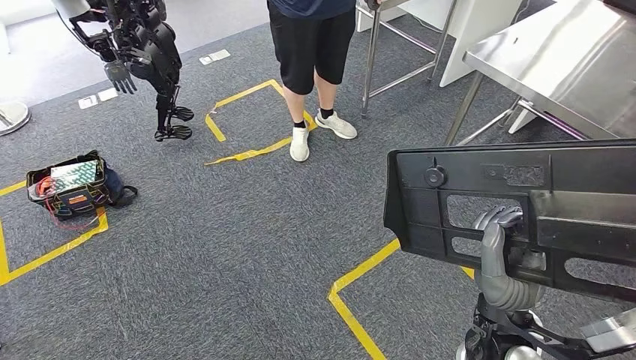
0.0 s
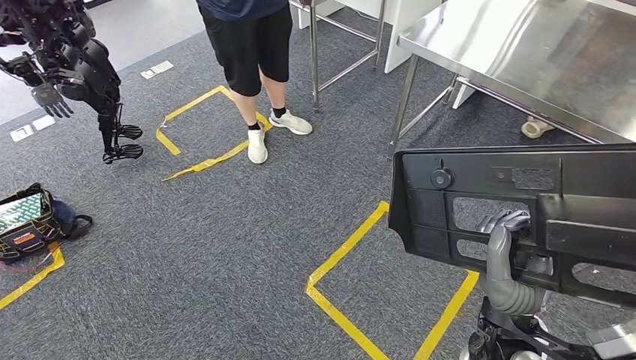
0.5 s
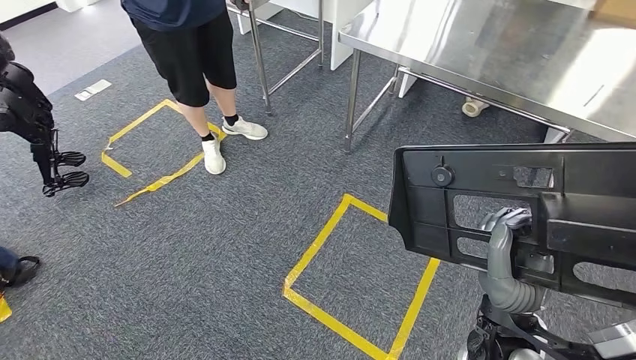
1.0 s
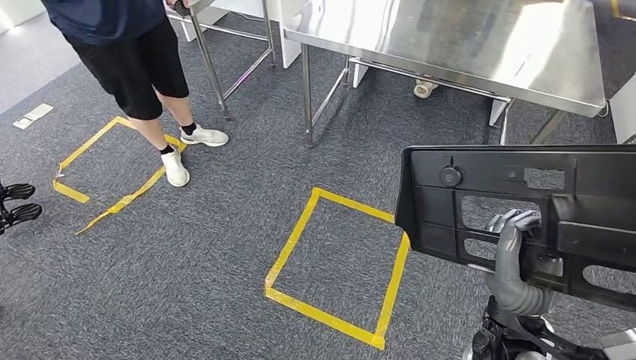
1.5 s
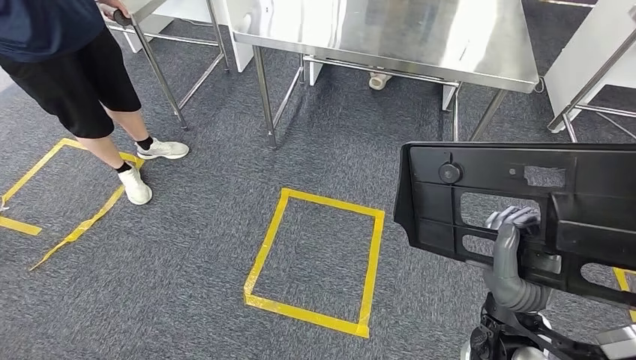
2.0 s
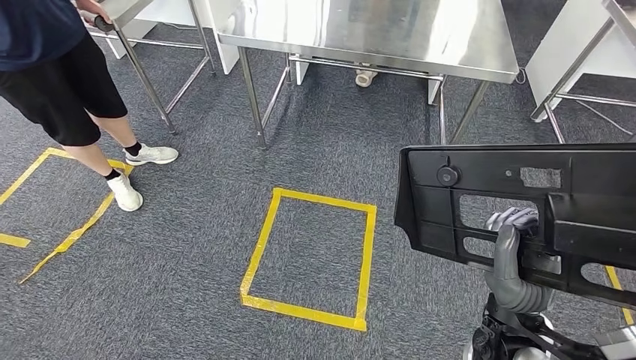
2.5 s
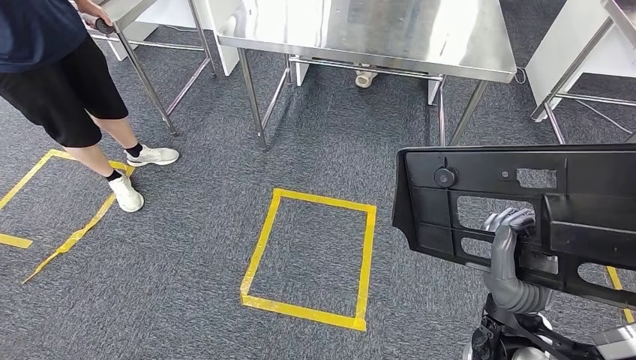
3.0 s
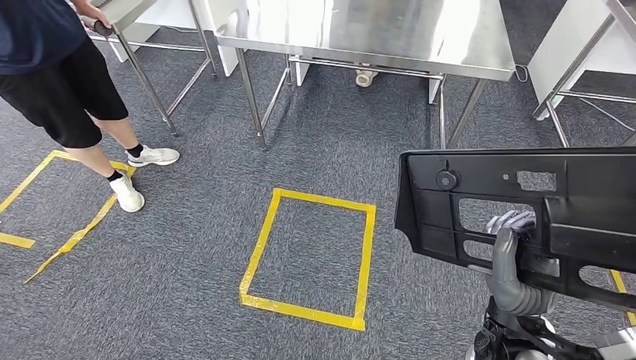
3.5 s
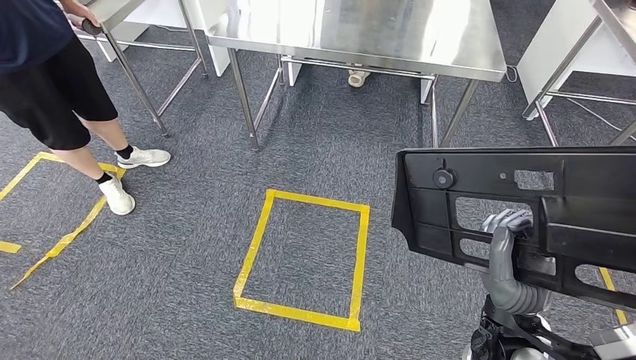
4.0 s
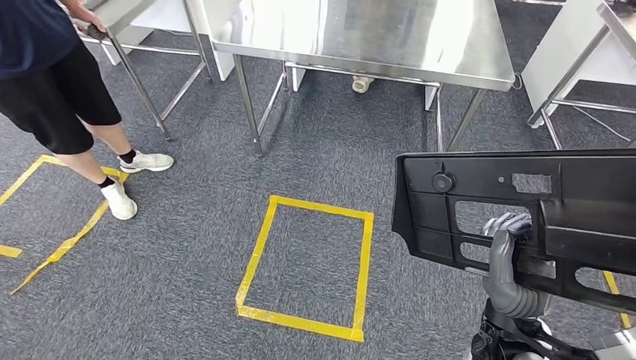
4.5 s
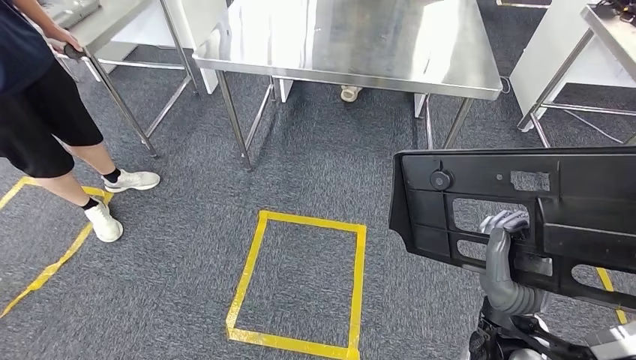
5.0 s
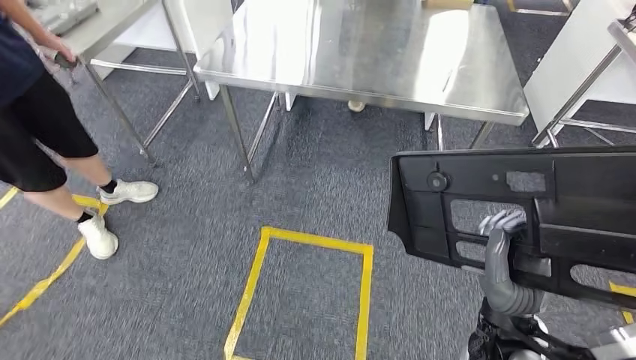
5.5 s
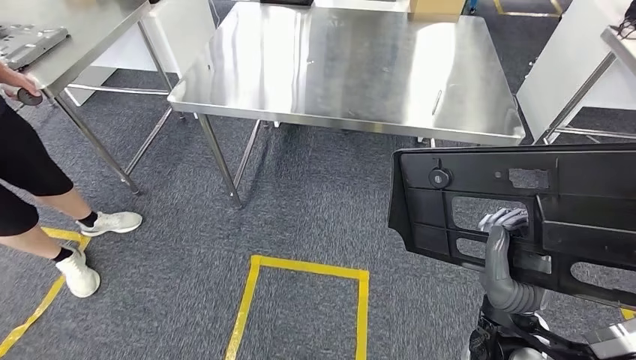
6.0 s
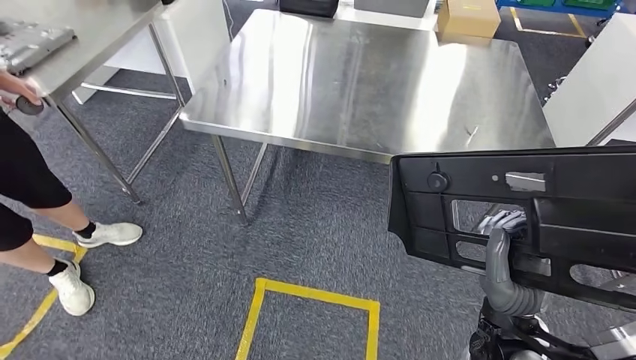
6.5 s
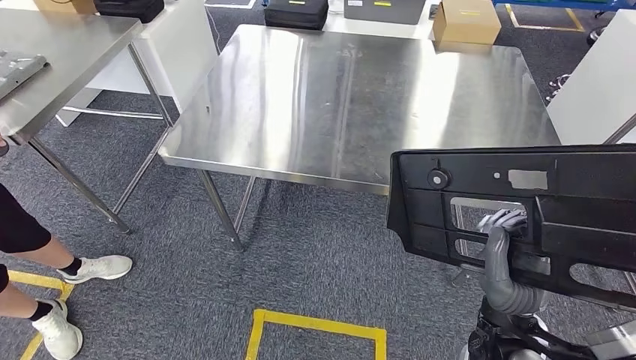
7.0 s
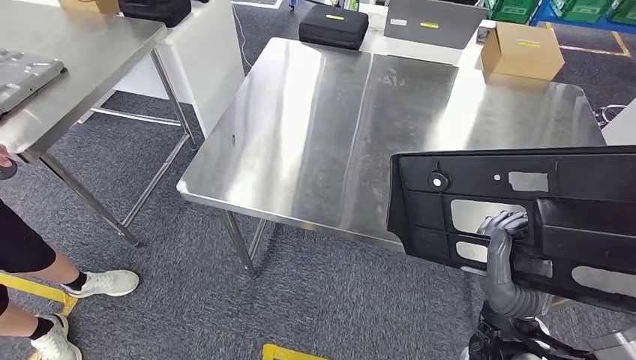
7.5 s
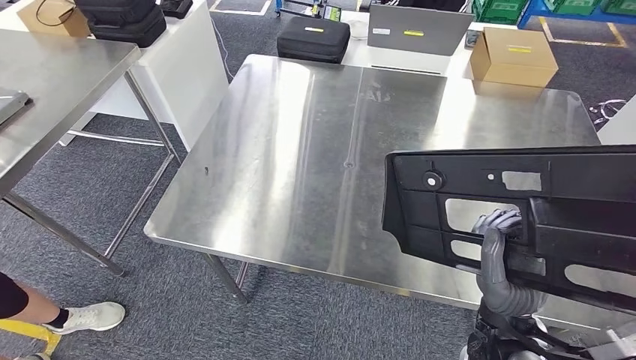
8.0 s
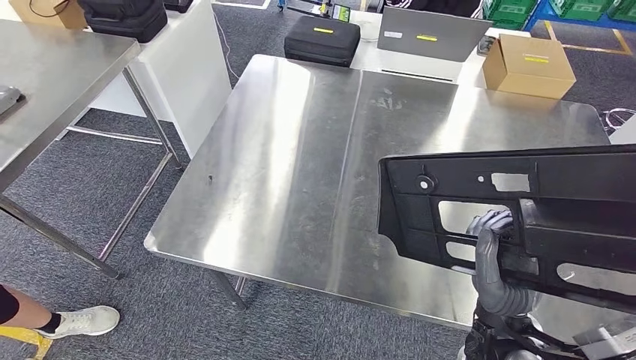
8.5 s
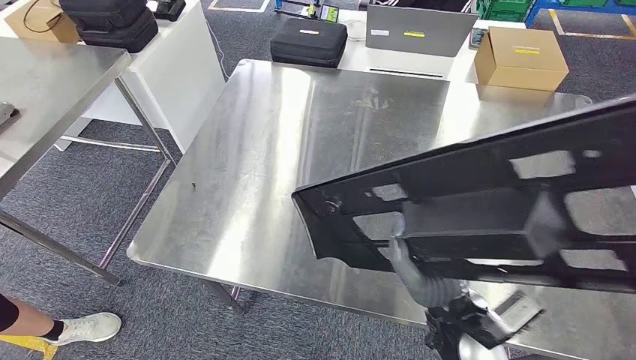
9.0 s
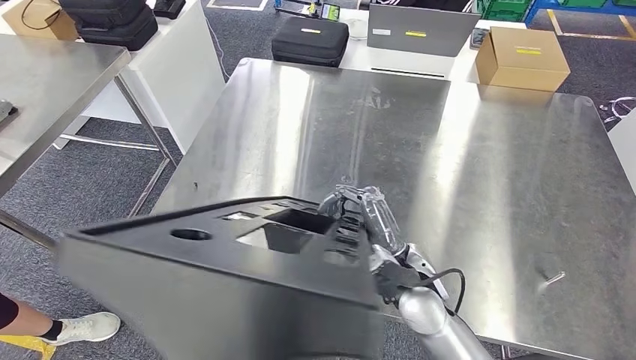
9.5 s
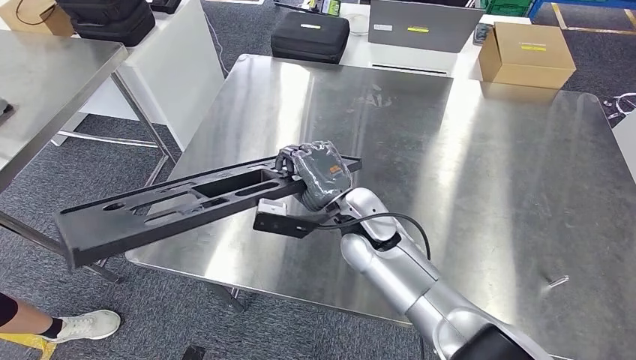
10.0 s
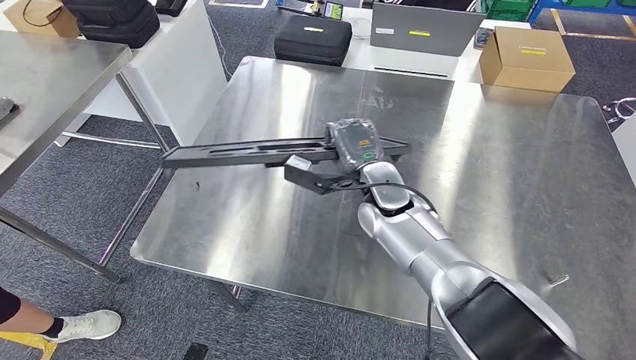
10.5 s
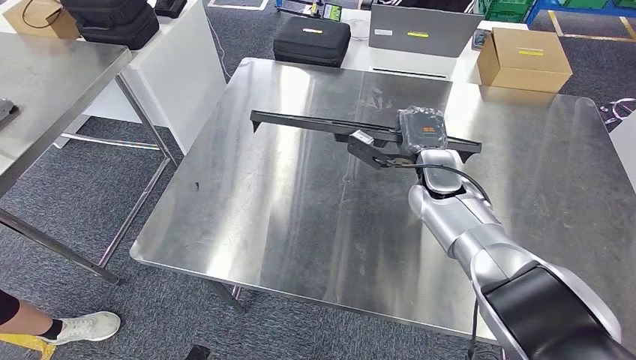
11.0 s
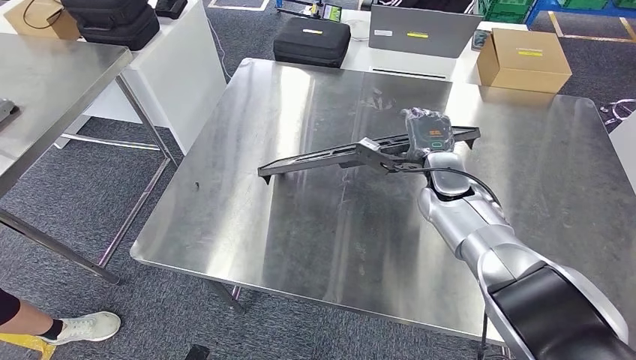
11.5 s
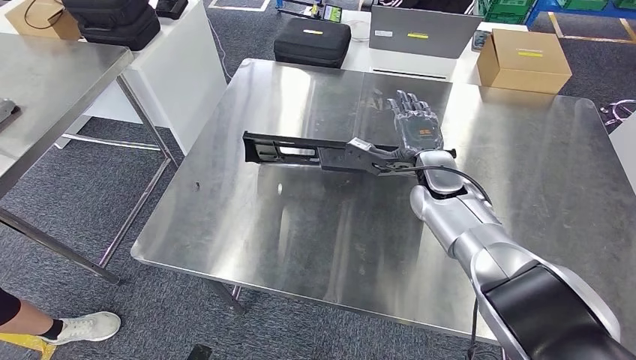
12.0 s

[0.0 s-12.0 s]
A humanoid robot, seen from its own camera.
Step, 0.0 to 7.5 s: Move the large material to the workbench.

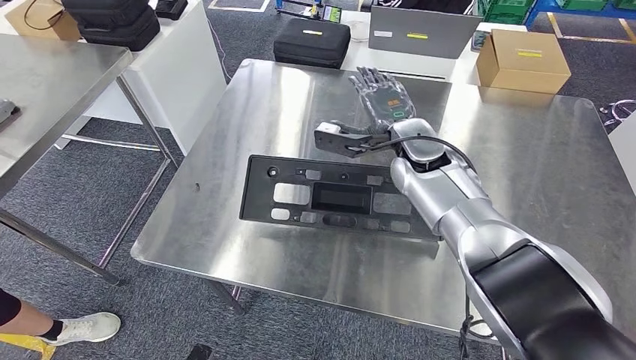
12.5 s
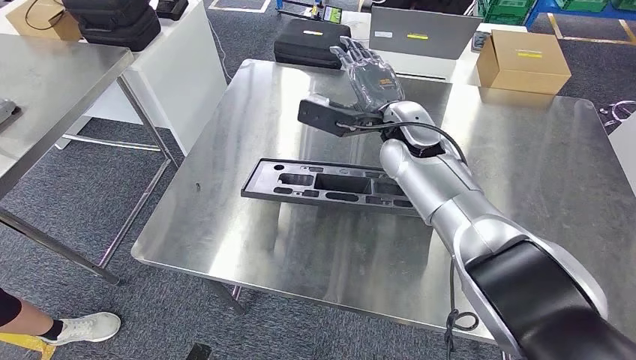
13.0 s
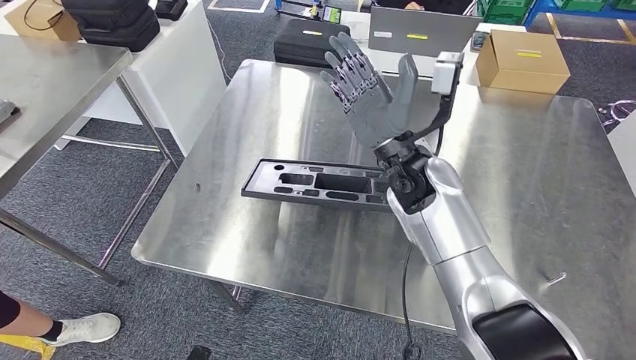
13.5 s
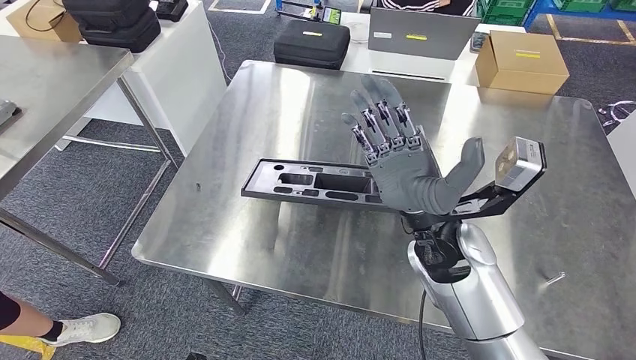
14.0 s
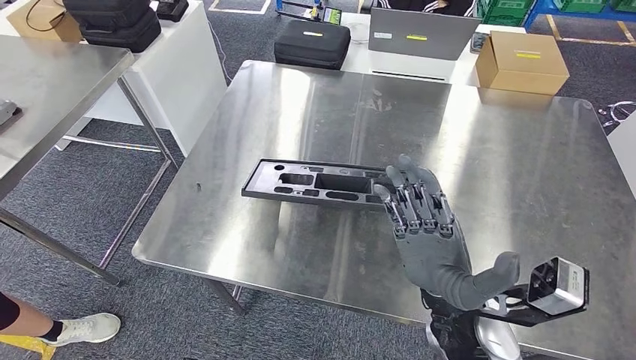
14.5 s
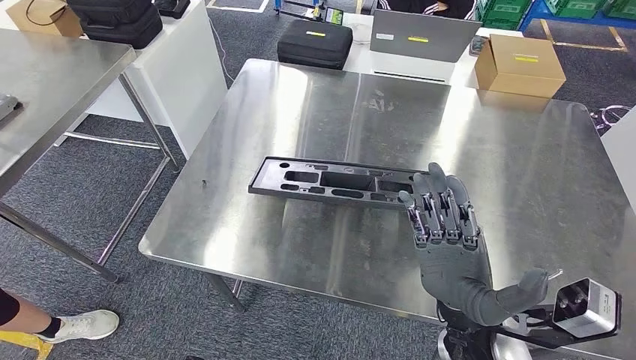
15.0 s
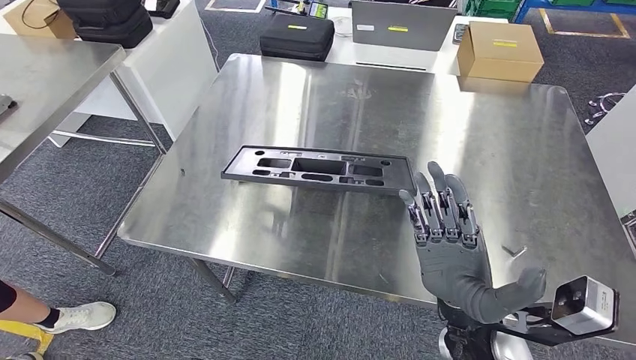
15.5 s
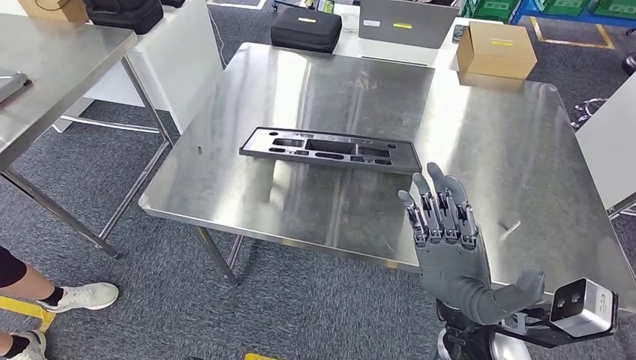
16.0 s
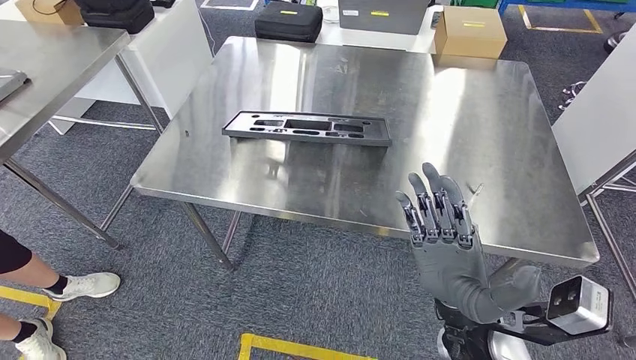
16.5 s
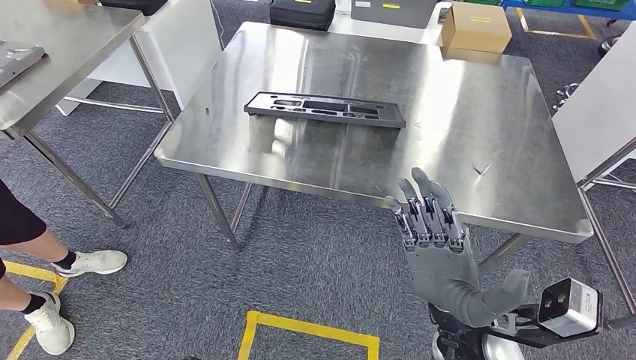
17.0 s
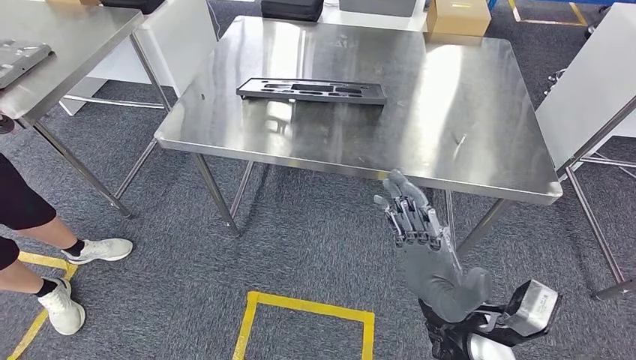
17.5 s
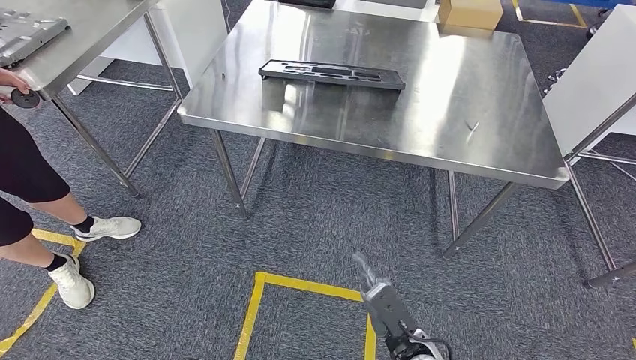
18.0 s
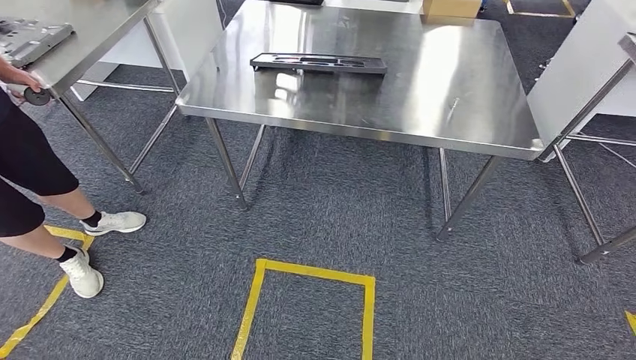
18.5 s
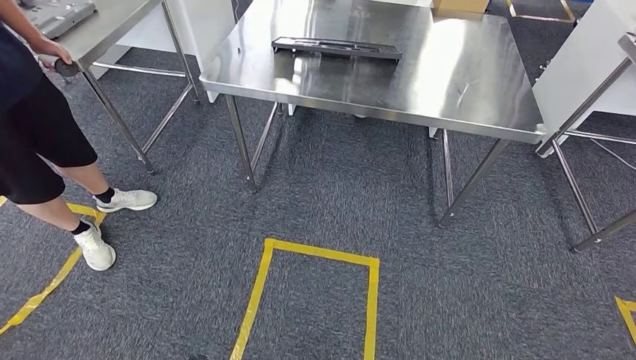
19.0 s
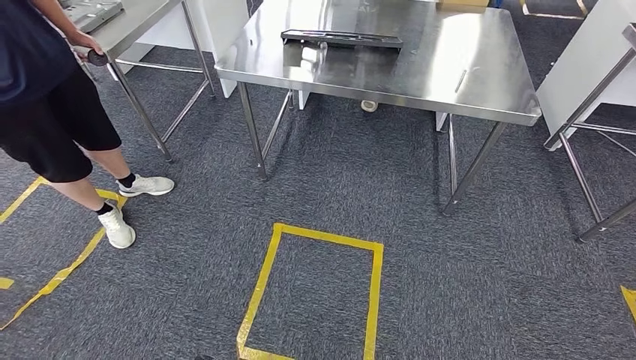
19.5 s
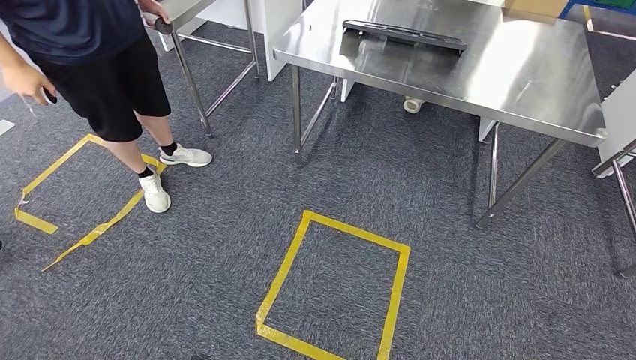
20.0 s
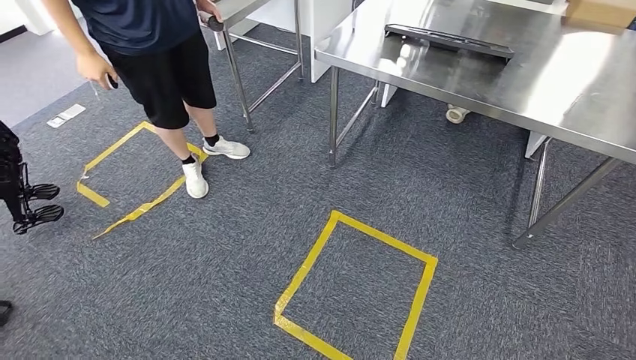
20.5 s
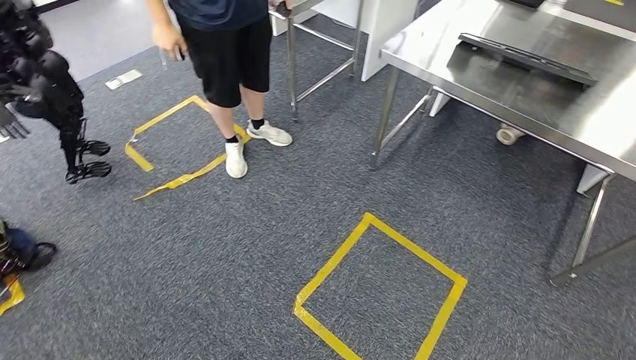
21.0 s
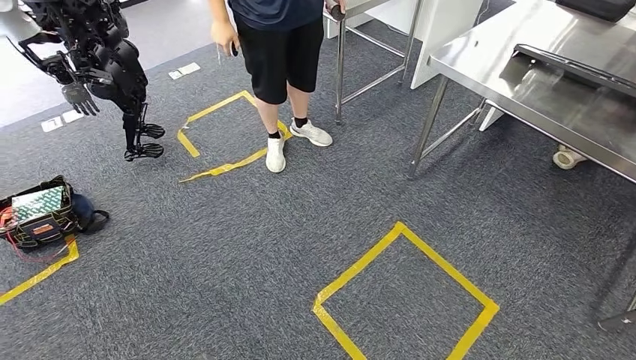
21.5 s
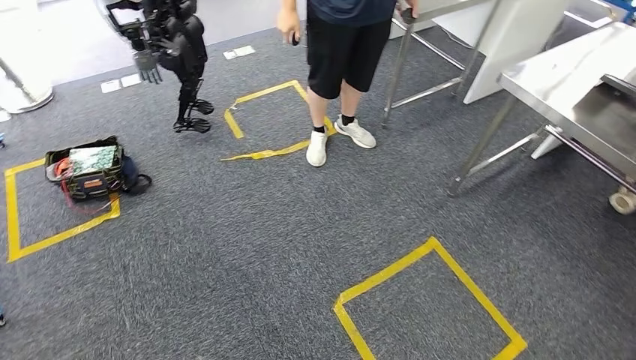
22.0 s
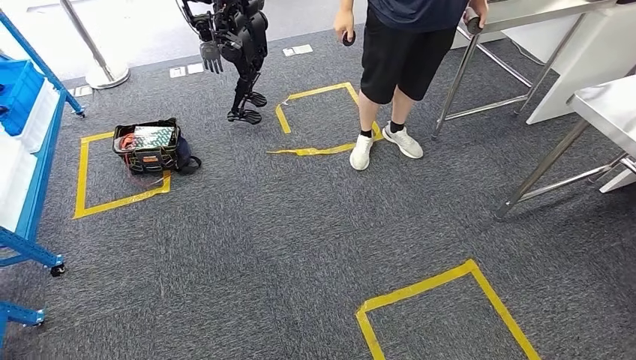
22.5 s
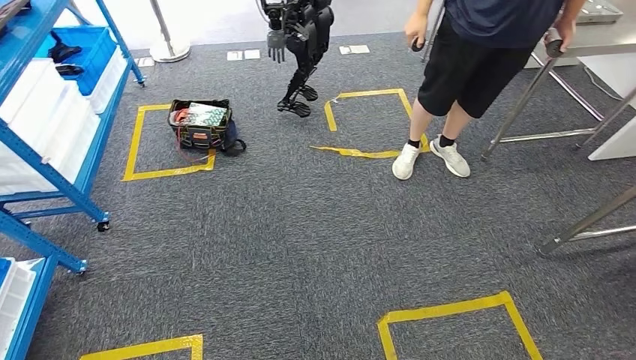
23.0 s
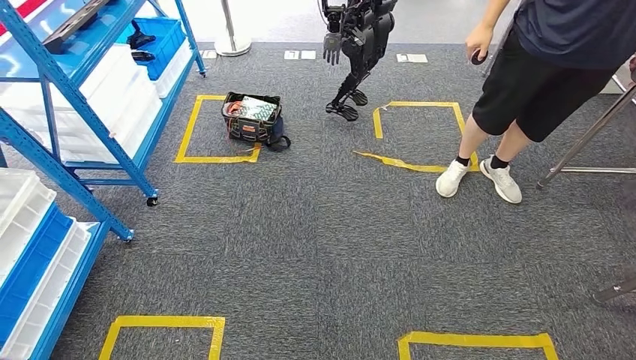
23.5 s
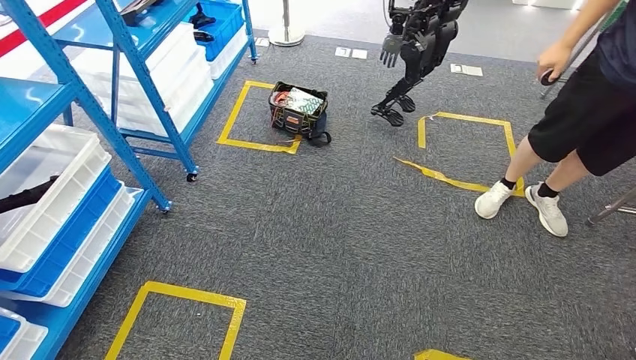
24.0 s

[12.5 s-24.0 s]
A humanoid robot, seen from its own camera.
Step, 12.5 to 15.0 s: Insert the large material into the corresponding slot on the workbench.
